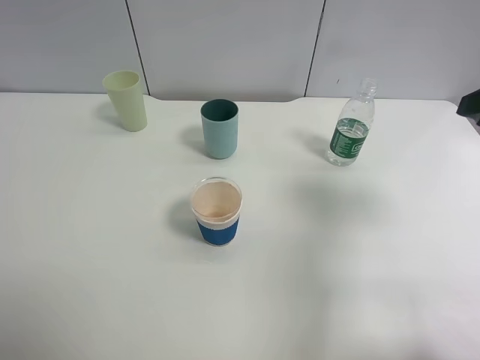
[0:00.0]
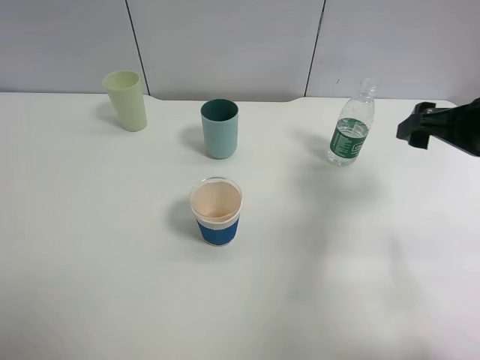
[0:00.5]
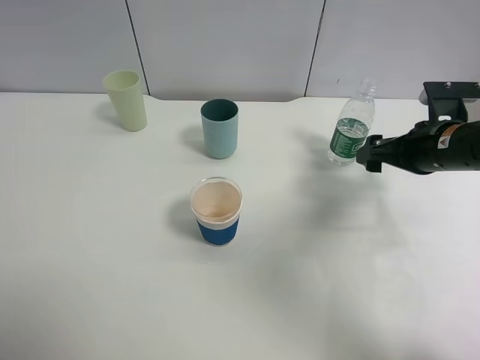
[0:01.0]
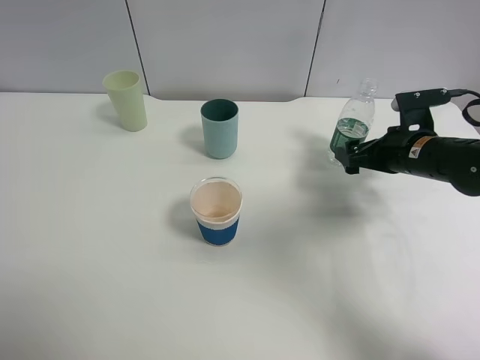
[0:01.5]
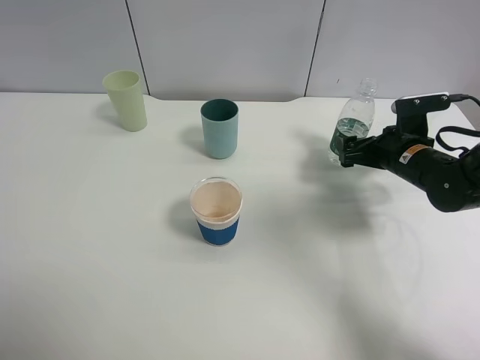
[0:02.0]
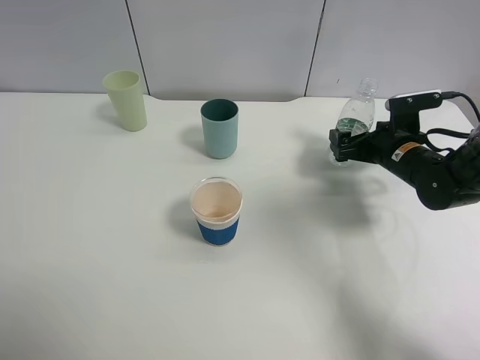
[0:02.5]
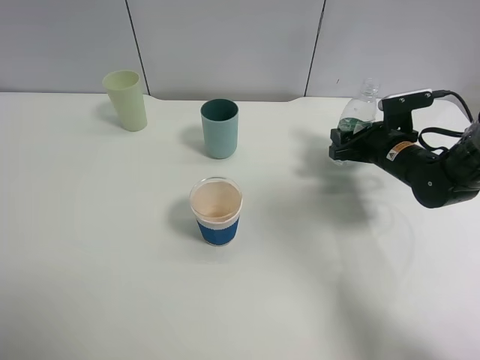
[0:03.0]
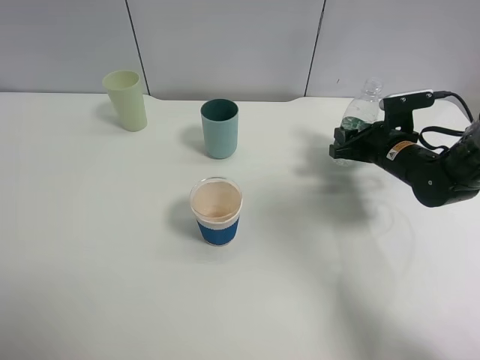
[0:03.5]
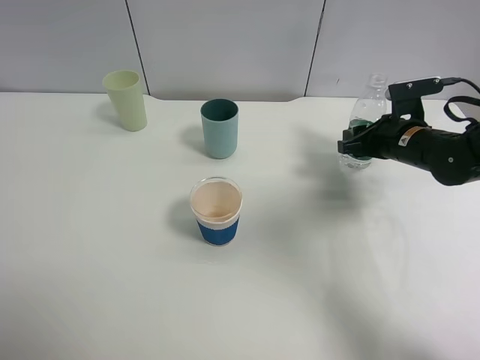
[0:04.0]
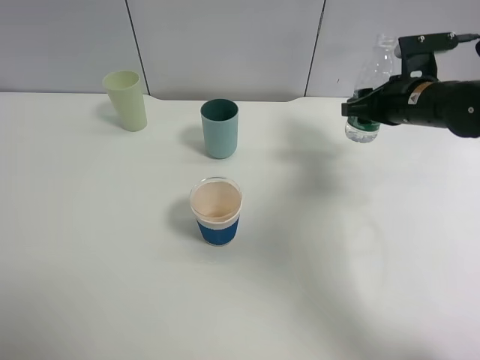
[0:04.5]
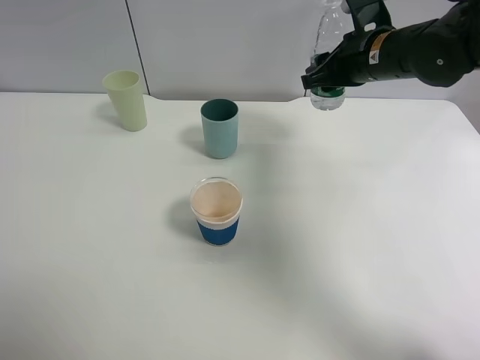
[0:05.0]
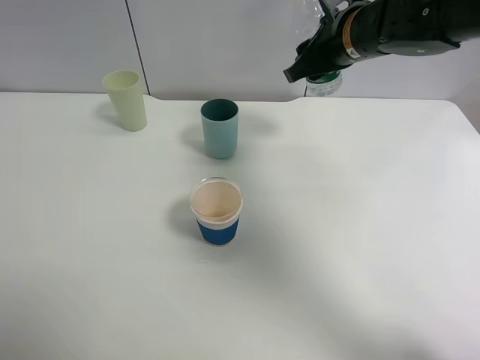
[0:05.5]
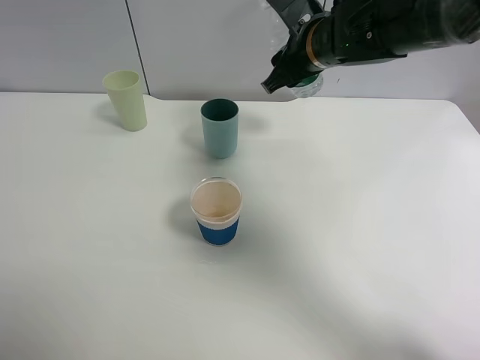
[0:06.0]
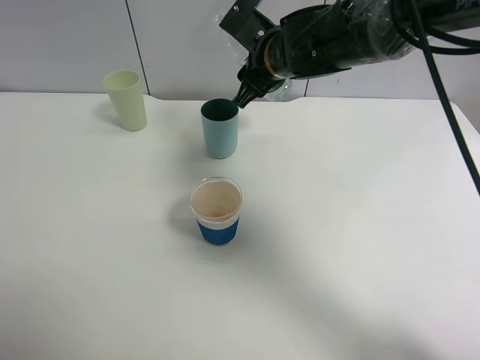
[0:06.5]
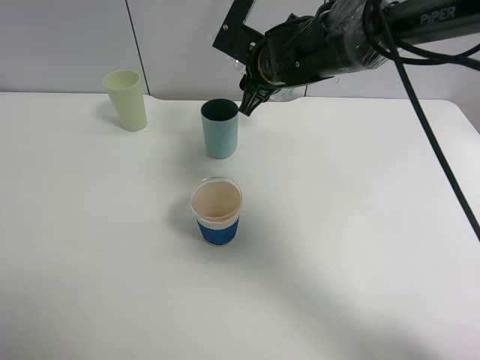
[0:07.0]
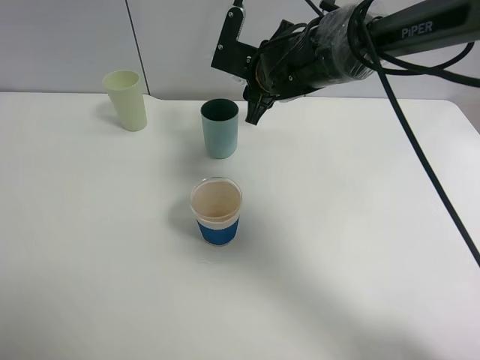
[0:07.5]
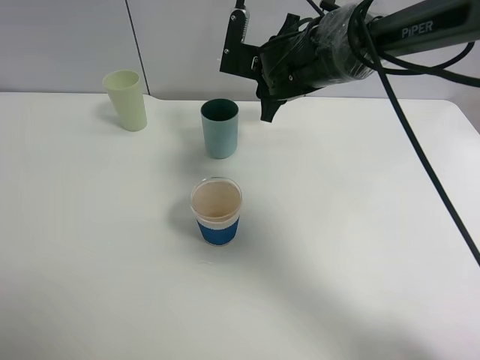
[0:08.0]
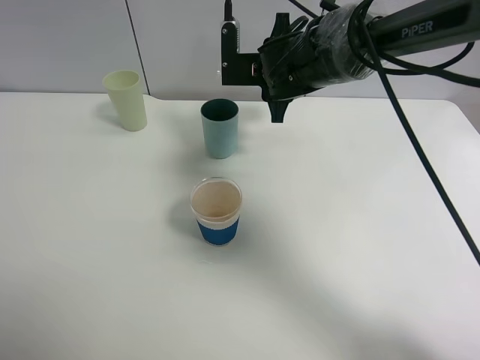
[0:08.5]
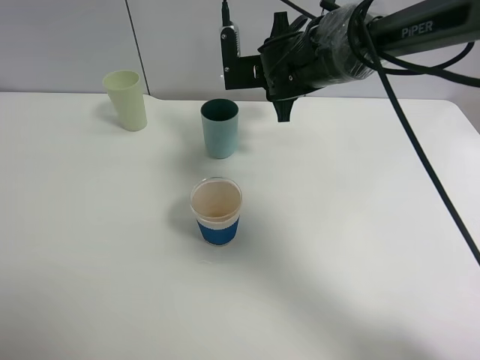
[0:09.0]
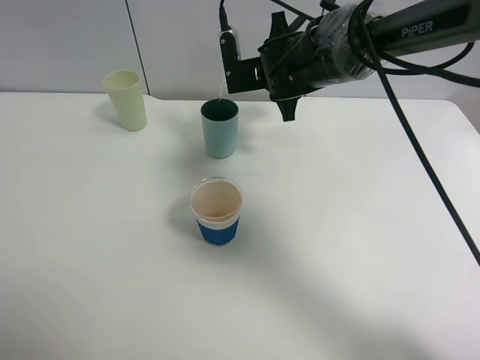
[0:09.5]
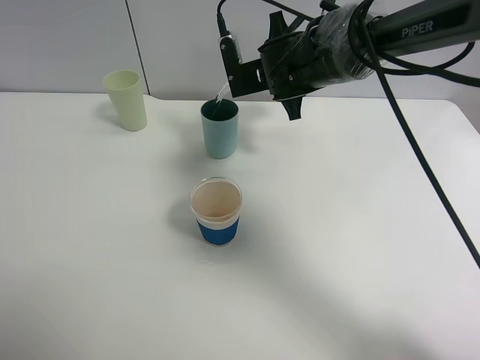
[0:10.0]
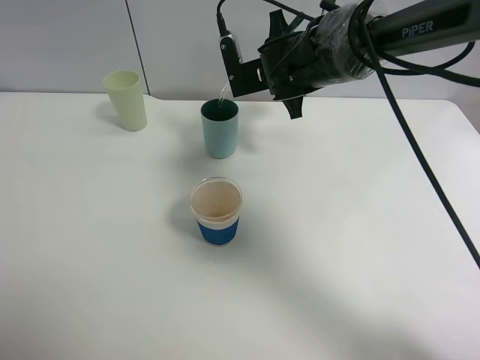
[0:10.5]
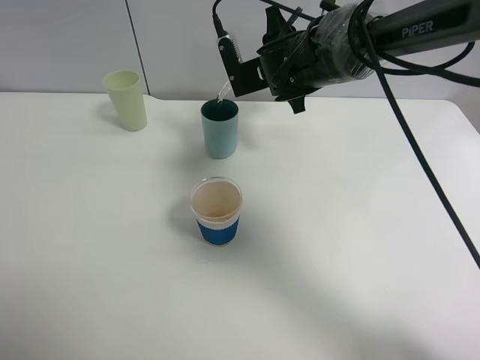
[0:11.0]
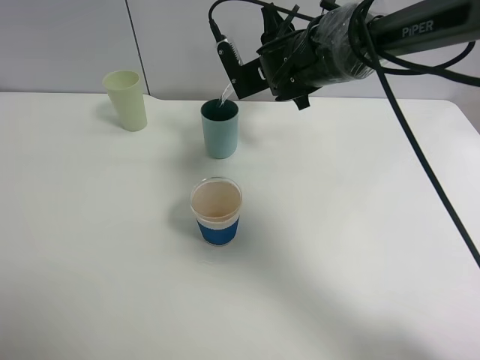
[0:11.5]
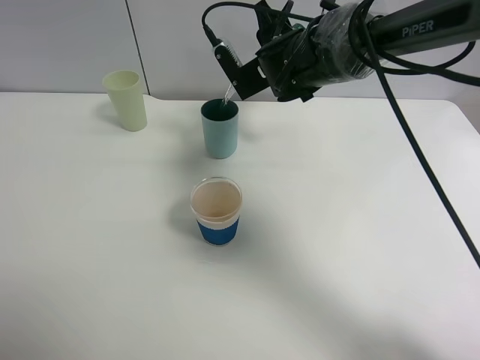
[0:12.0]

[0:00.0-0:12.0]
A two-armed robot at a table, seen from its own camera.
Task of the whole recording: use a clamp to hold the bottle of the drink, pour the beverage into a random cup, then clamp the cup containing the drink and pour the drink into another random cup.
Step, 0:00.0 to 0:04.0: Pick up the water bottle with right gripper.
0:00.0 to 0:02.0: The right gripper travels downward and forward by roughly 25 cm.
0:02.0 to 0:04.0: The right gripper closes its fingers.
0:04.0 to 0:06.0: The right gripper shifts about 20 cm to the left and upward.
0:06.0 to 0:08.0: The right gripper shifts by some 5 cm.
0:10.0 to 0:12.0: The grippers move only a little.

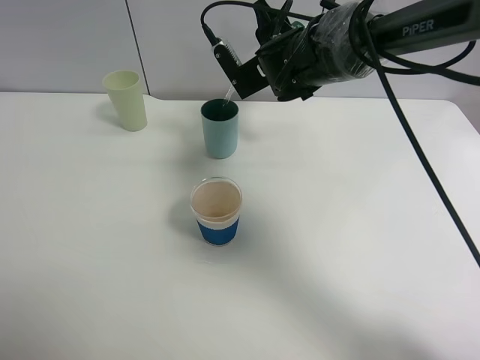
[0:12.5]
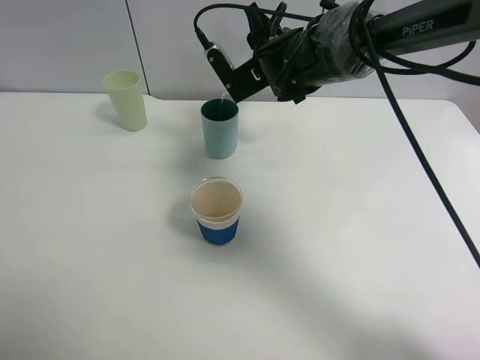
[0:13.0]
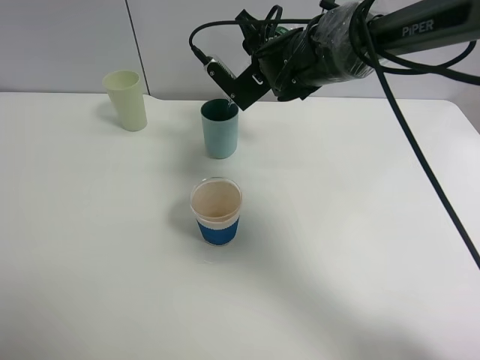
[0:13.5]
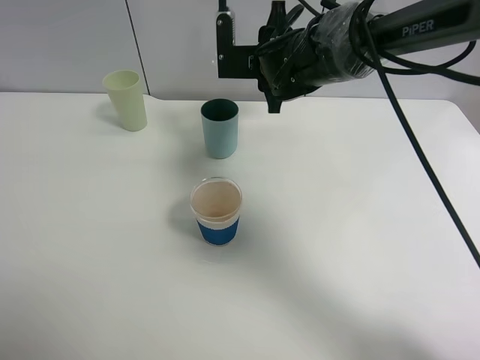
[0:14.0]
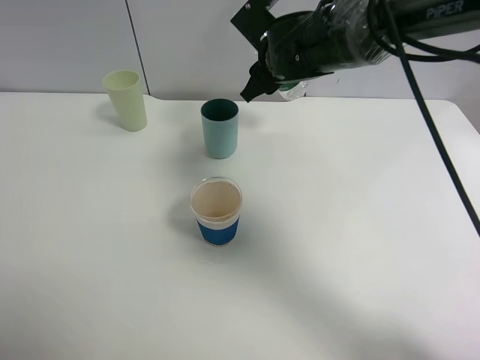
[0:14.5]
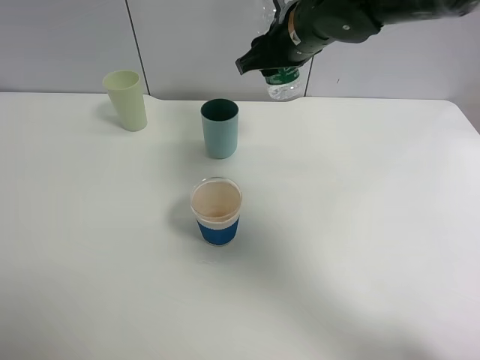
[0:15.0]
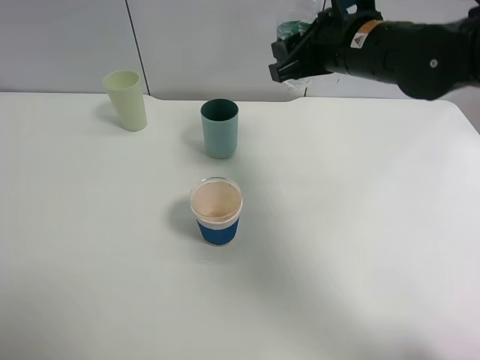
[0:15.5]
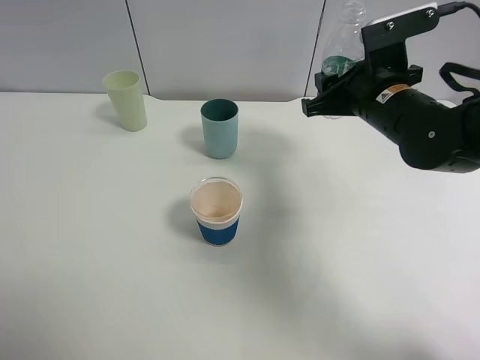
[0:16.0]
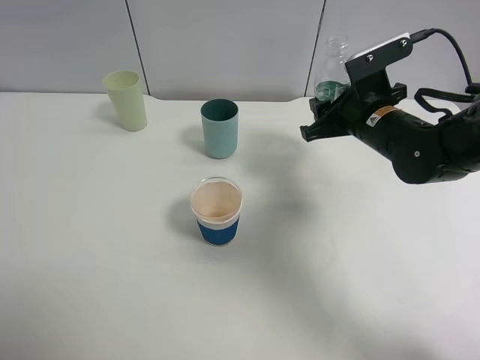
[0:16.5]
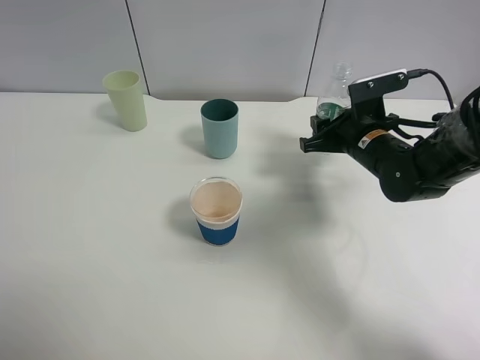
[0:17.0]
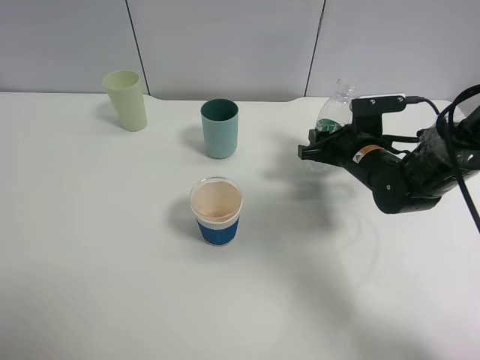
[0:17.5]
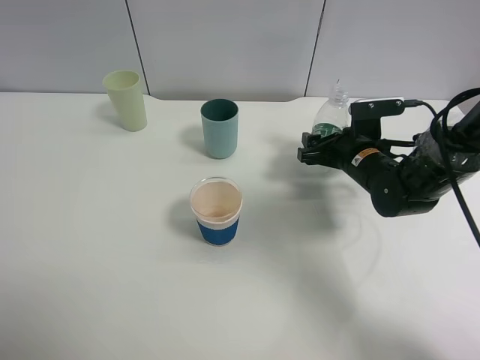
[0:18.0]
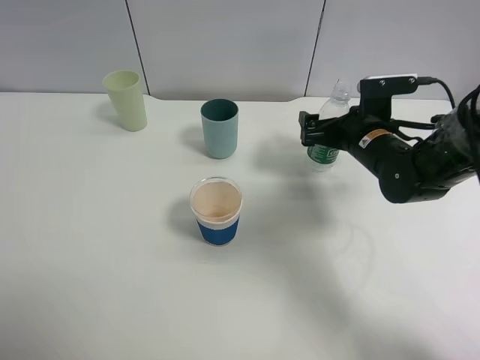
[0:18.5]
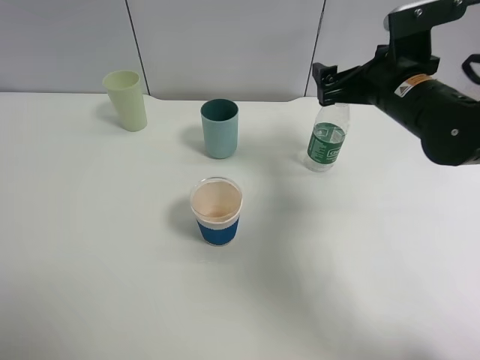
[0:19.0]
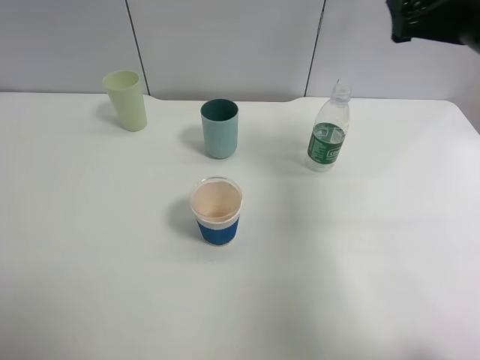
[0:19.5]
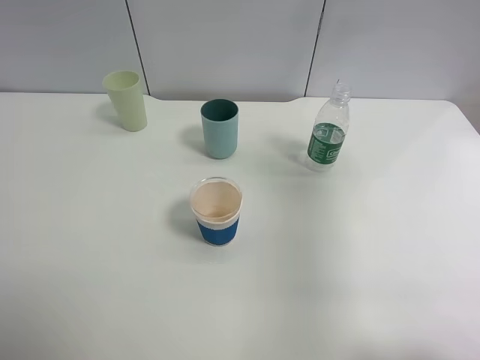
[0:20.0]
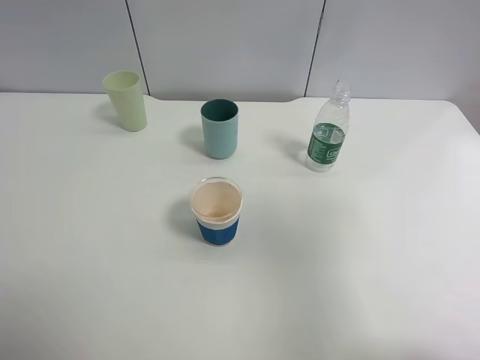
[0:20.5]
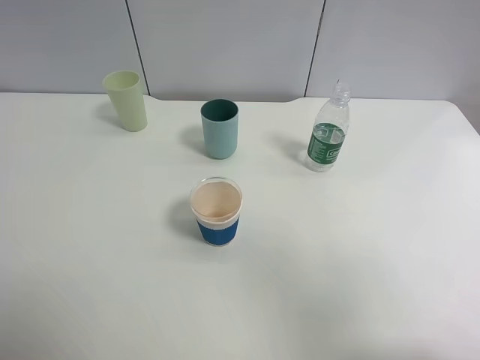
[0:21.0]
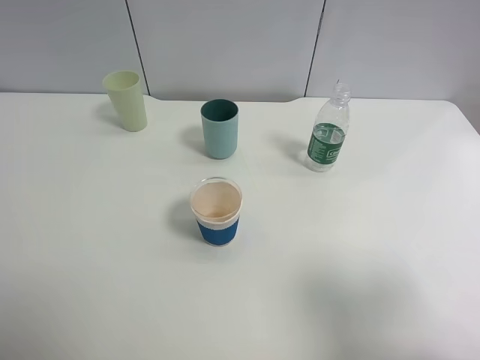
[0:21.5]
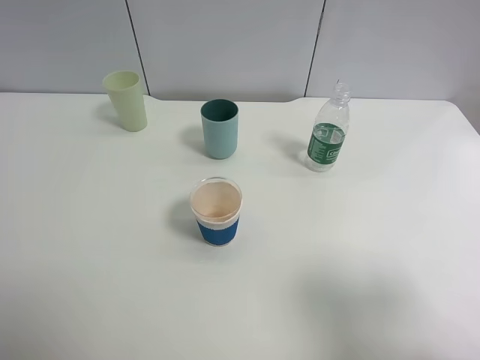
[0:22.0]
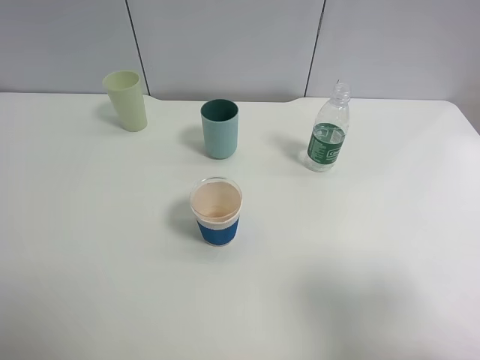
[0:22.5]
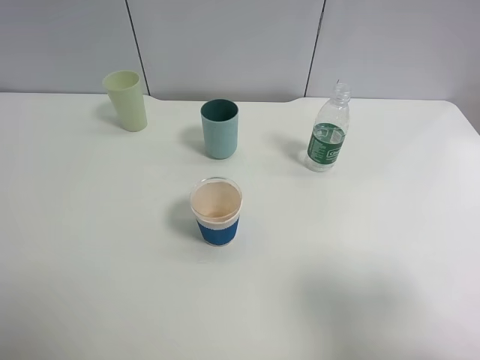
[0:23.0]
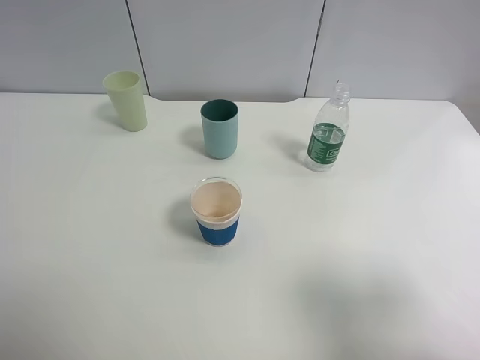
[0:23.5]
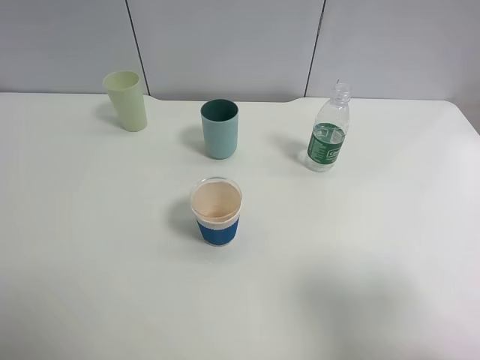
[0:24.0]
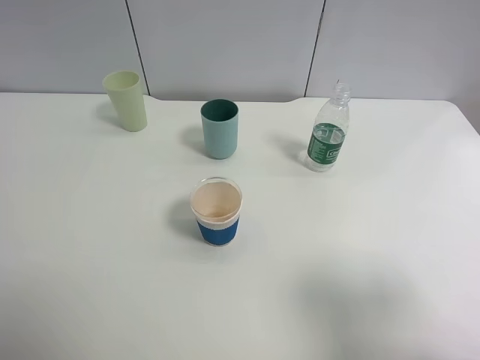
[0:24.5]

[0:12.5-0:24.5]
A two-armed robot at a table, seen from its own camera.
Task of the whole recording: use a clamp to hold the bottle of the drink, pour the beverage into a random cup, then clamp the cup containing the drink and pour the drink into another random cup.
Step, 0:14.5 to 0:18.5: Place the water bottle on the table with right gripper.
0:14.5 to 0:16.5: The right gripper moves to the right and backward, some 15 cm.
0:16.5 to 0:18.5: The right gripper opens.
0:18.5 to 0:20.5: The right gripper travels backward and upward by some 35 cm.
0:20.5 to 0:22.5: The right gripper heads downward and backward, covering some 10 cm.
0:22.5 to 0:24.5: The two grippers keep their place.

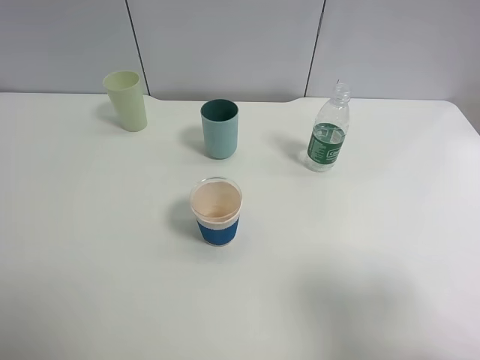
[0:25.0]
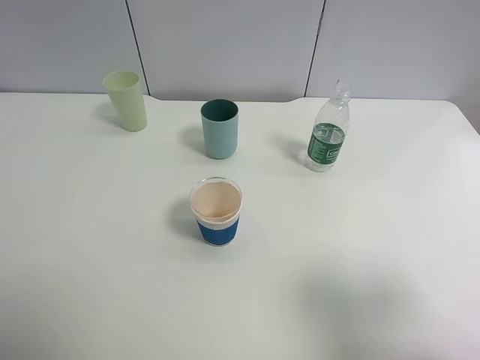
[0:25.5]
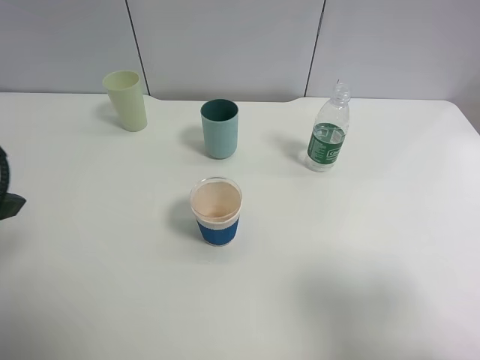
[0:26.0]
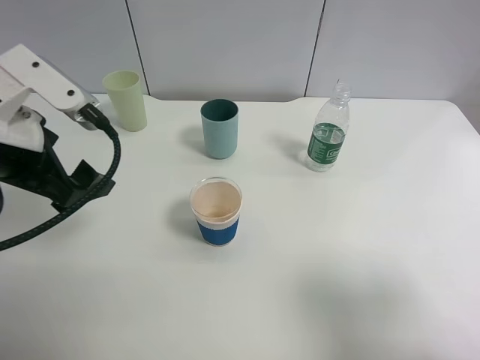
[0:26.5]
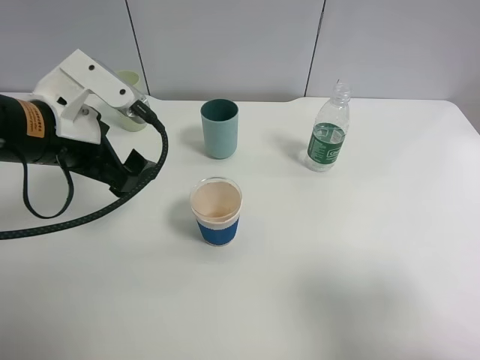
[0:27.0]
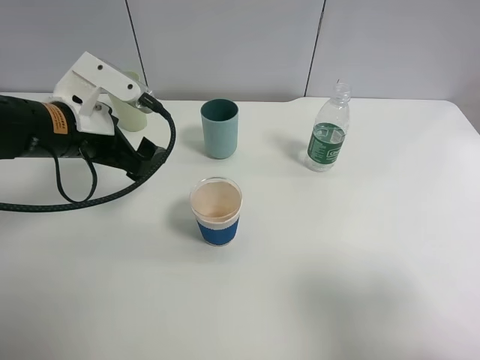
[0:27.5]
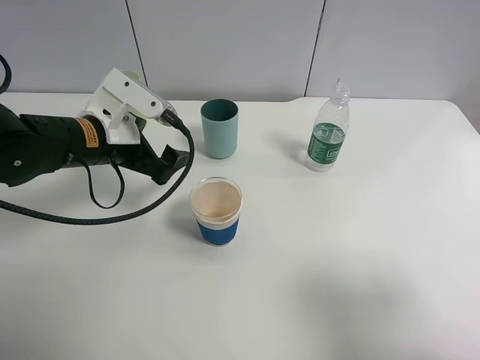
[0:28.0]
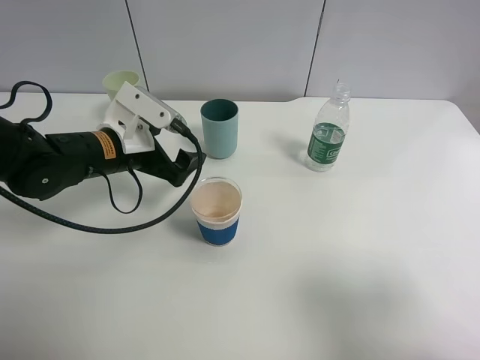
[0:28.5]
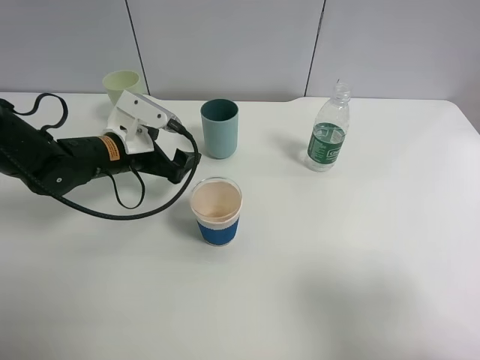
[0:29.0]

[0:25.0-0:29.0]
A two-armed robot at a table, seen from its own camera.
Task of the whole recording: use a clamp to hold the bottle of the drink, pour the beverage into a random cup, then clamp the cup containing the drink and pour the drink into another random cup.
0:25.0 to 0:27.0: The left gripper is displaced forward and to the right by about 25 cm.
0:27.0 to 0:29.0: The left gripper shifts roughly 15 cm downward and forward.
